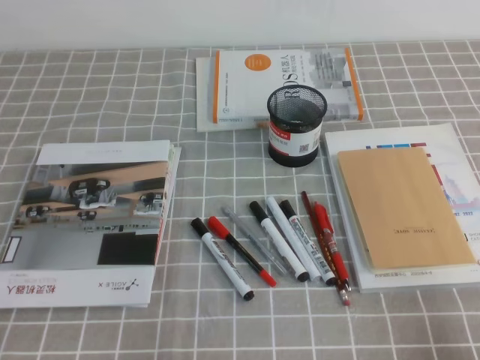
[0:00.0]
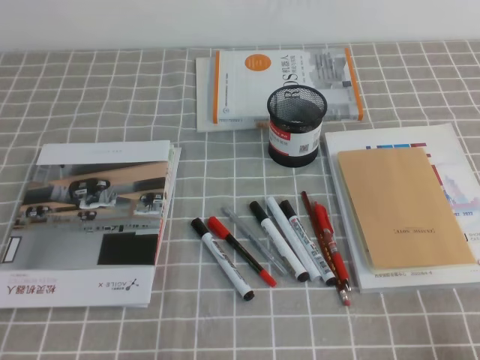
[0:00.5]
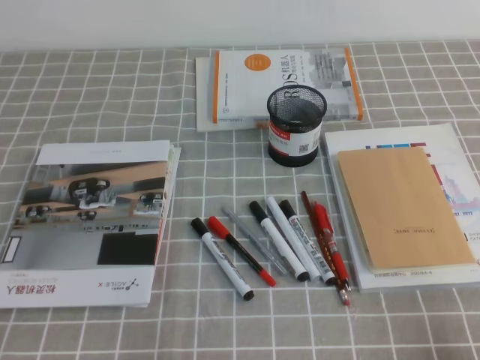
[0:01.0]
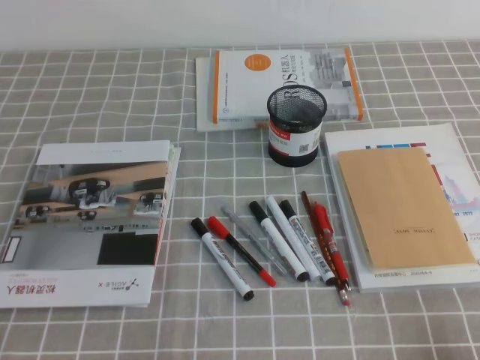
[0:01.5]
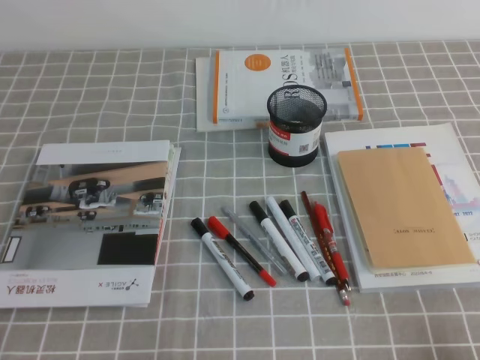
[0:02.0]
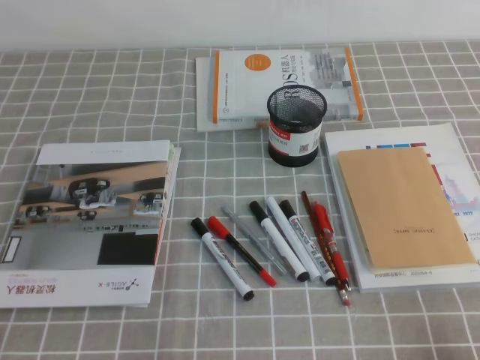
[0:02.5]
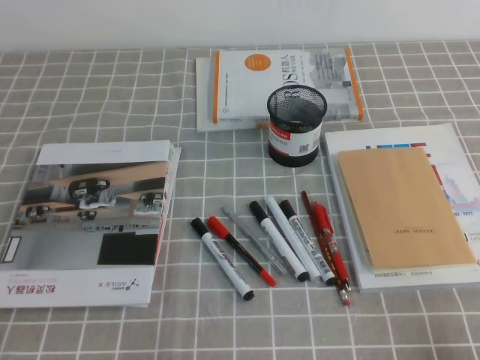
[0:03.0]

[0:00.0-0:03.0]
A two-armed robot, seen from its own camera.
0:01.5 to 0:03.0: The two grippers keep their place.
